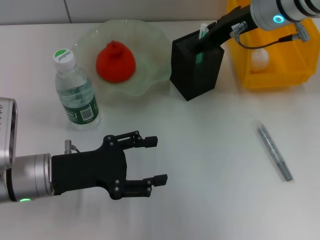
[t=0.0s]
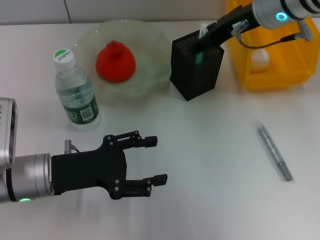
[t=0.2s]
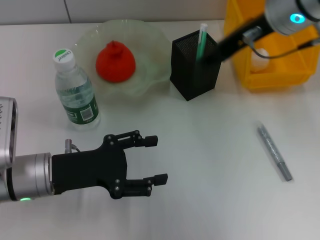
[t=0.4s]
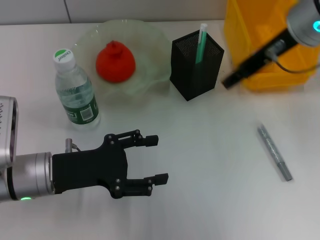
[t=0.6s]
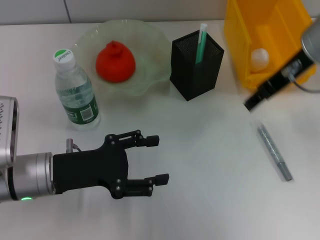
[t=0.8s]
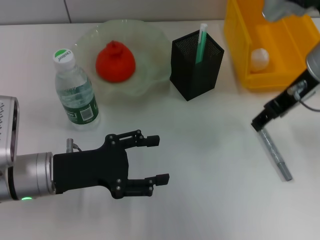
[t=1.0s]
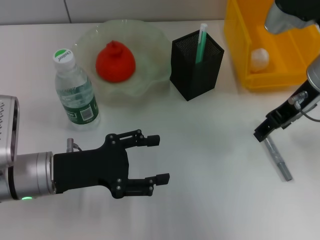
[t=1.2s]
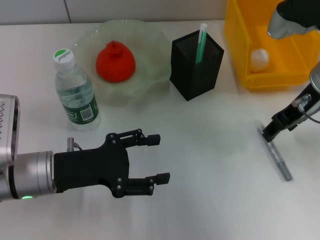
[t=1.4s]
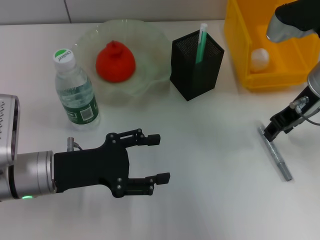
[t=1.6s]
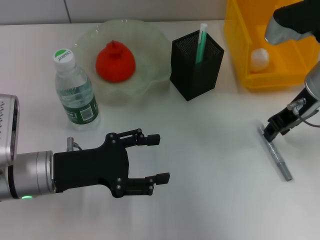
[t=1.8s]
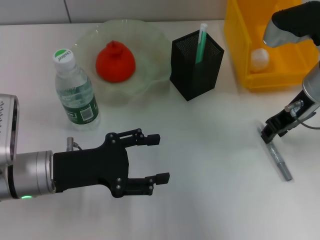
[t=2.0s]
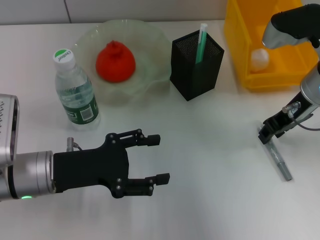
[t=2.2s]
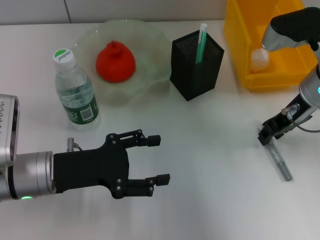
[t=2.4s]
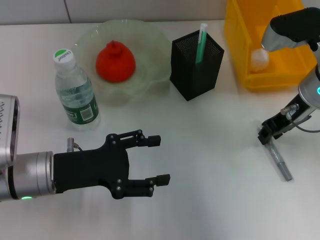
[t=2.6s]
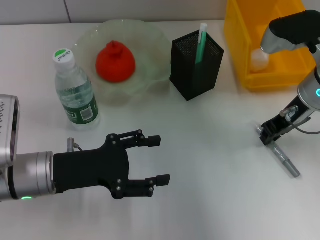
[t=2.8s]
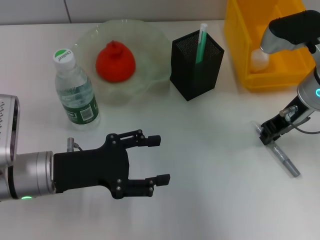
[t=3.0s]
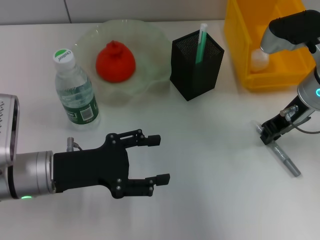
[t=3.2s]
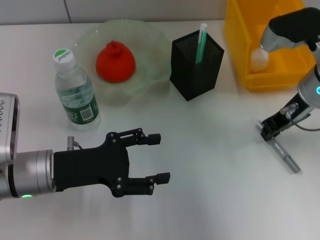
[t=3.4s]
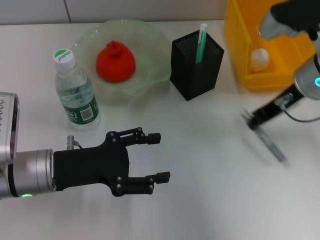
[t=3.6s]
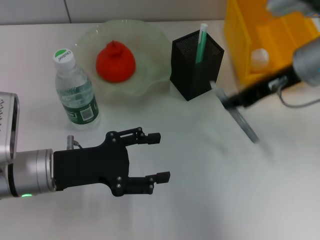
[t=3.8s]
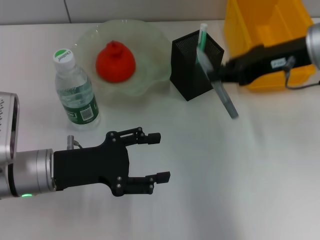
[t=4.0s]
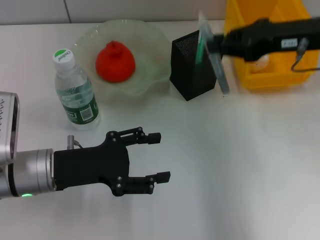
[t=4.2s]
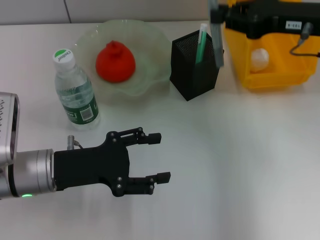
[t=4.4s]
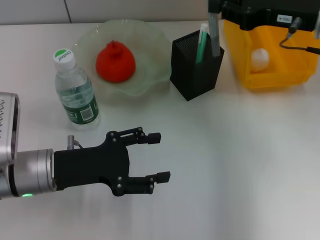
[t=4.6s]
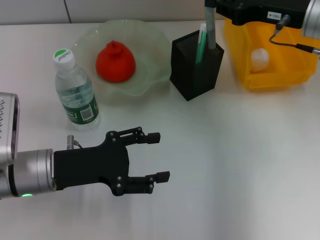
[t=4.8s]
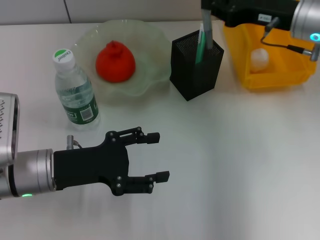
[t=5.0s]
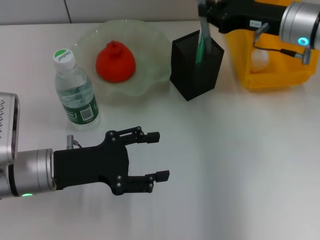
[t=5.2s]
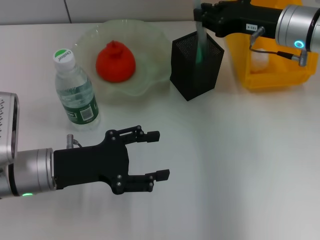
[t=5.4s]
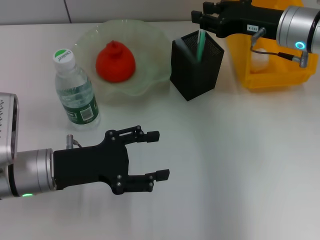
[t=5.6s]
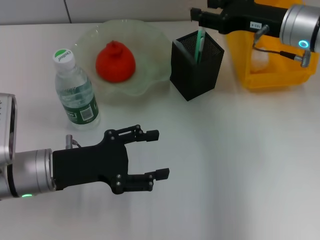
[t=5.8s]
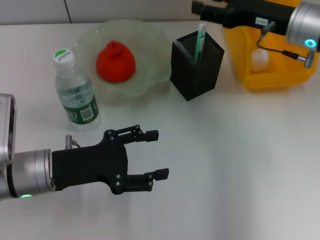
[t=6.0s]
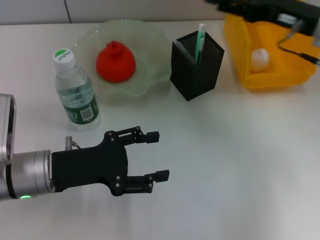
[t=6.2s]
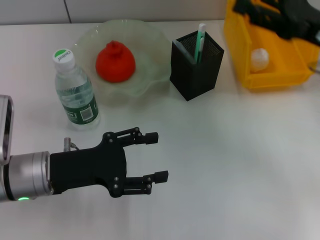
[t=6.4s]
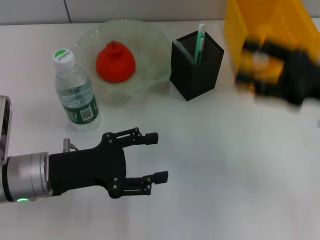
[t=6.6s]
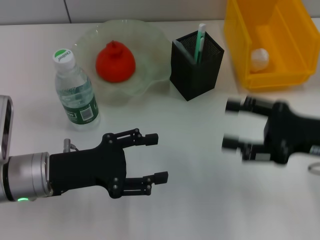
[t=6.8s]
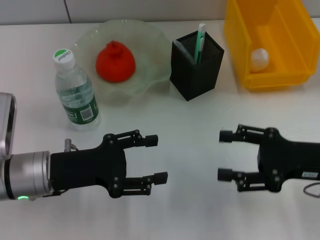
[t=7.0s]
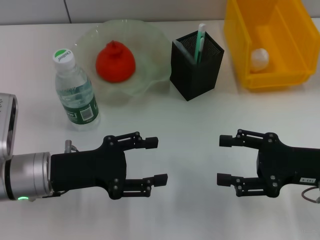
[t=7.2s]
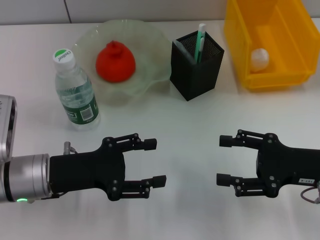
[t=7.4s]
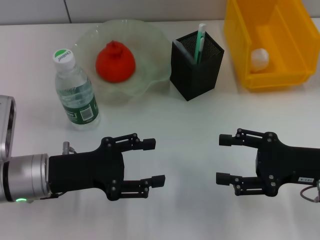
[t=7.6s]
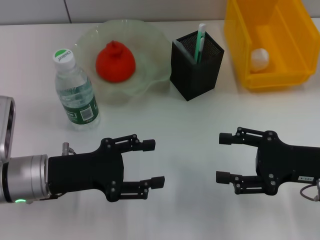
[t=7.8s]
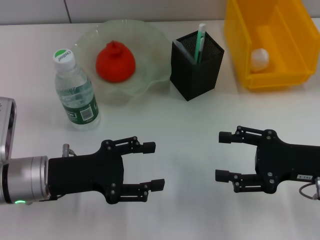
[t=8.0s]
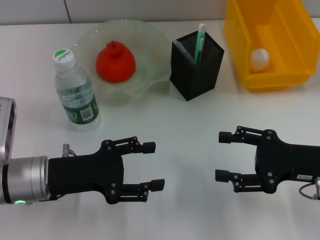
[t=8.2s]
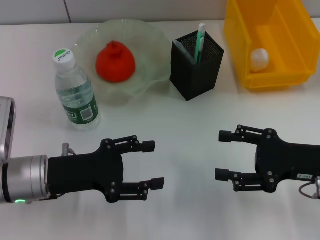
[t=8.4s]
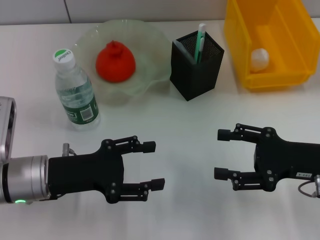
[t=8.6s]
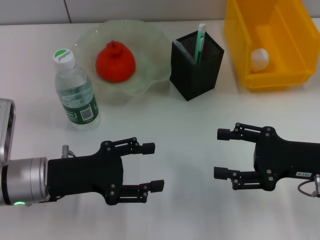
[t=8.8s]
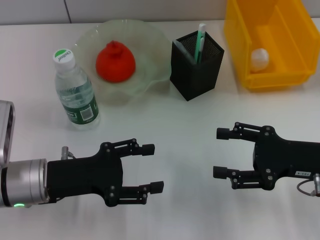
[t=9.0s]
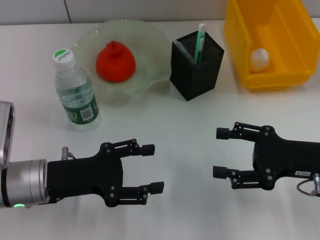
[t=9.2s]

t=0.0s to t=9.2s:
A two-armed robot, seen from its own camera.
Step, t=0.0s to t=3.2s: Grab the gray glue with the right hand.
Step, t=3.4s to t=5.6s: Place the gray glue into the pen holder with the right hand.
t=0.0s to t=1.6s: The right gripper moves to the right and backward, approximately 10 cm.
t=1.6s to t=3.0s: The right gripper closes its fingers.
t=3.0s to t=4.6s: The right gripper travels upward by about 5 cm.
t=4.6s to t=6.2s: The right gripper opens.
t=6.2s to t=7.6s: The right gripper moves backward and downward, approximately 15 cm.
t=7.6s to t=9.2s: Neither gripper changes place.
